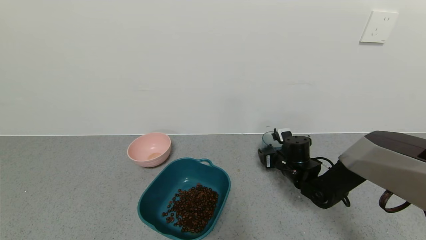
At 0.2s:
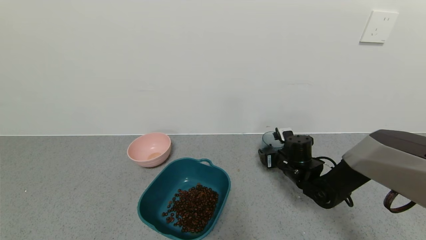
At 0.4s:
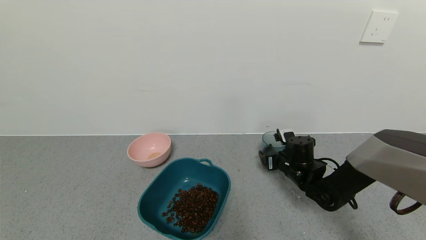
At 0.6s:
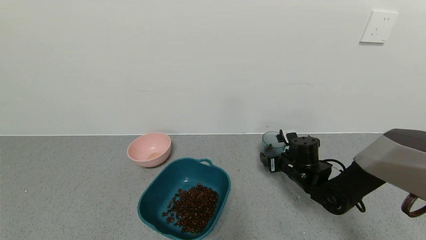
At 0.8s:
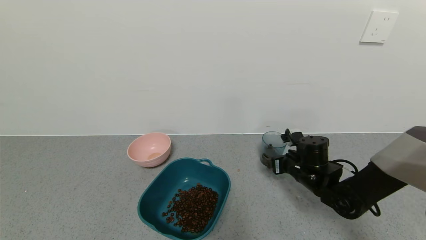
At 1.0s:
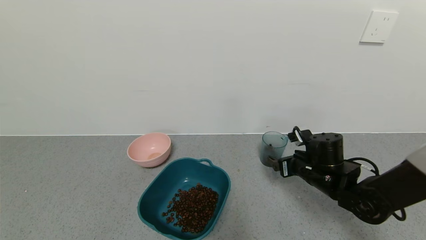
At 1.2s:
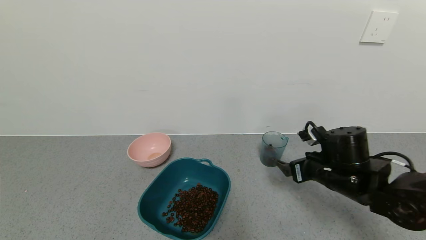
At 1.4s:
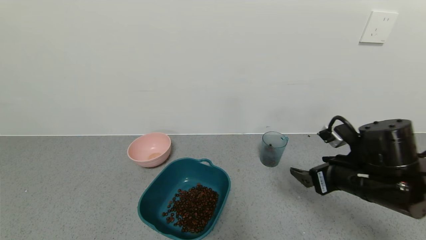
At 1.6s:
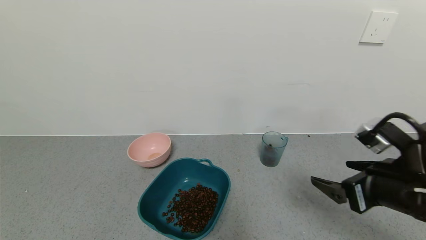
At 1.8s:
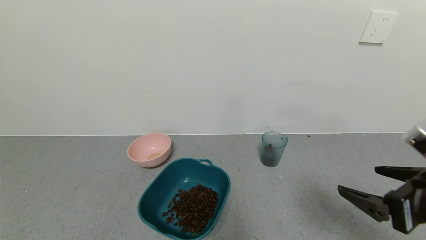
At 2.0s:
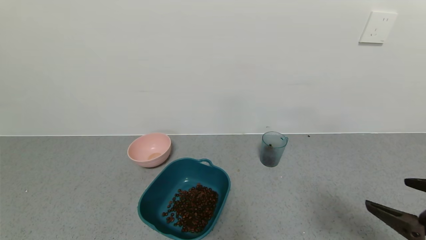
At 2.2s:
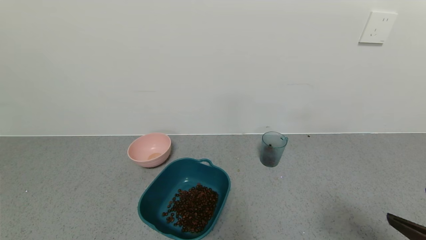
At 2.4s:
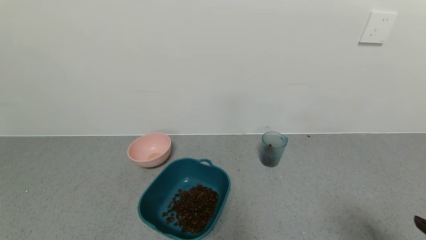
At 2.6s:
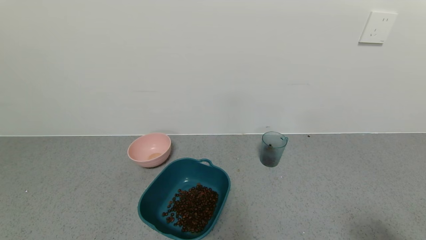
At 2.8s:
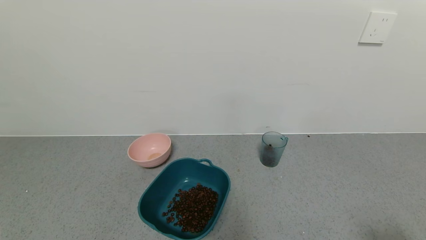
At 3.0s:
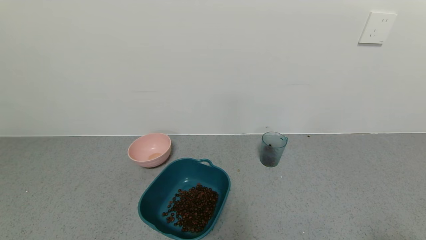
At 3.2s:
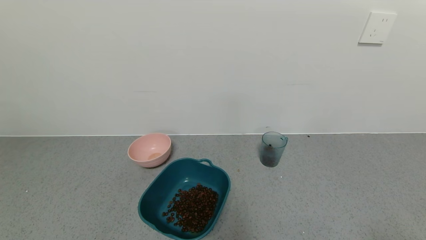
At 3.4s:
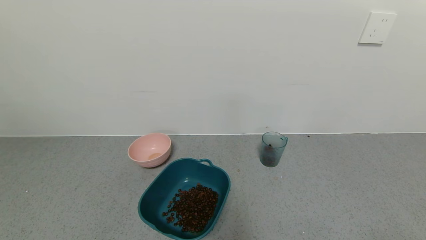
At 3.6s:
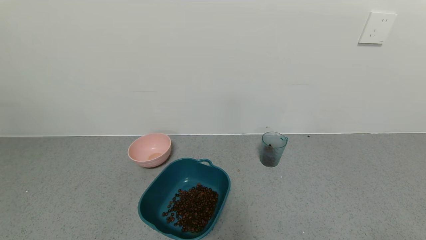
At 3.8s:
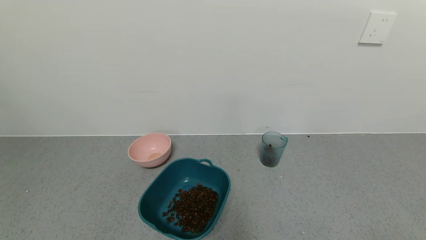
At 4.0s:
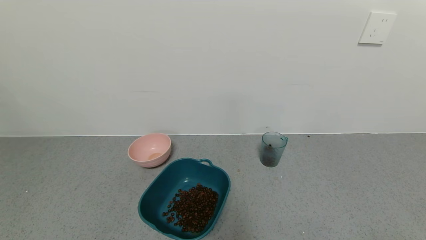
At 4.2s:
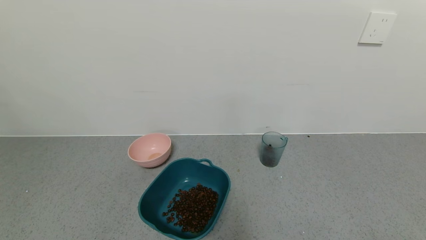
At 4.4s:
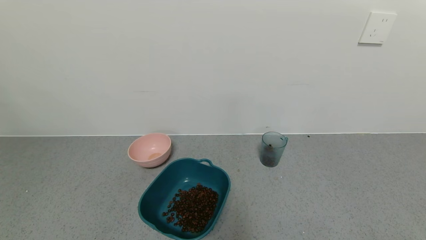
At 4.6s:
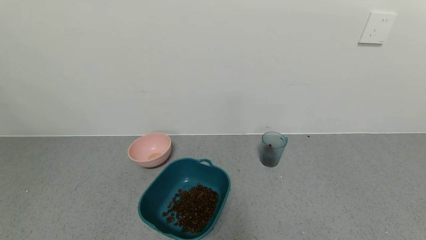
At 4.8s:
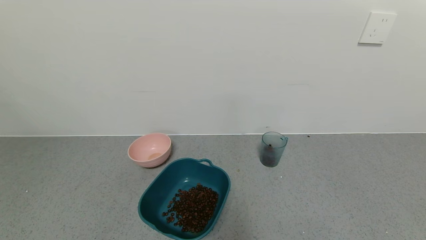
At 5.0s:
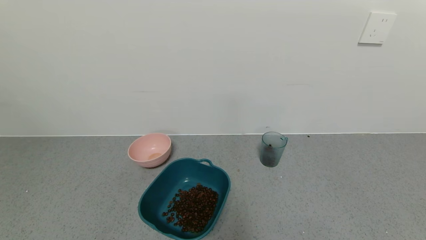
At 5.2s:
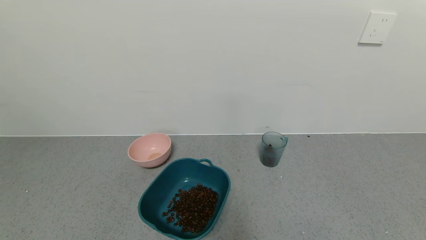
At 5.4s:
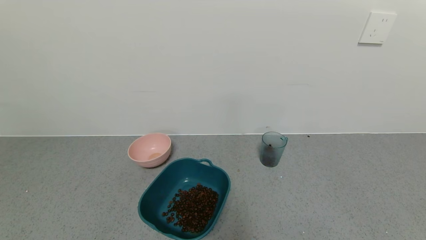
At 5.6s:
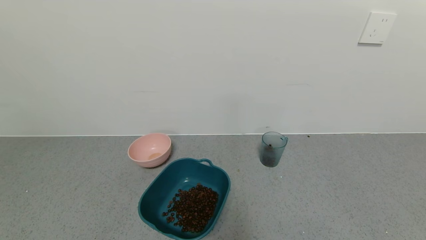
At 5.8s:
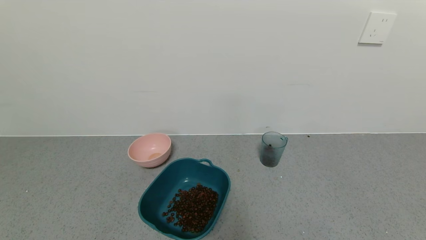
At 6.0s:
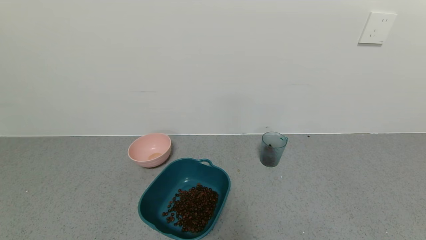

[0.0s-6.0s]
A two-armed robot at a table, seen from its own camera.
Task of the whole recording: use a gripper to pick up the cup and pour the solid into a bowl or tray.
0.0s to 1.6s: The right gripper moves backward and upward, about 25 cm.
1.6s to 3.0s: The right gripper heads backward and to the right, covering approximately 20 cm.
